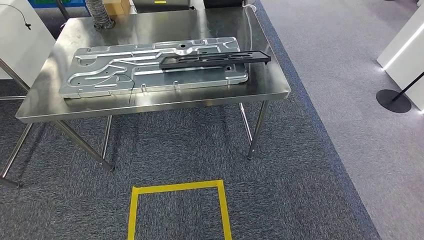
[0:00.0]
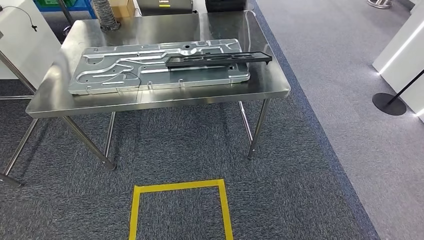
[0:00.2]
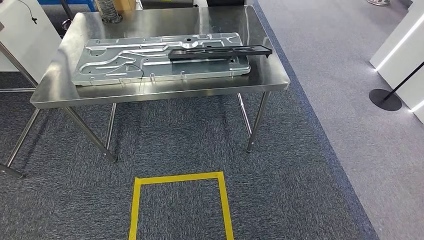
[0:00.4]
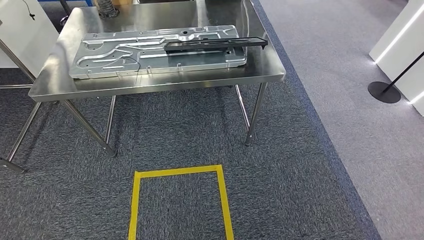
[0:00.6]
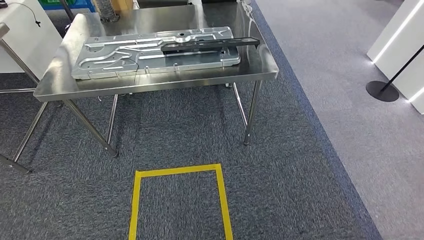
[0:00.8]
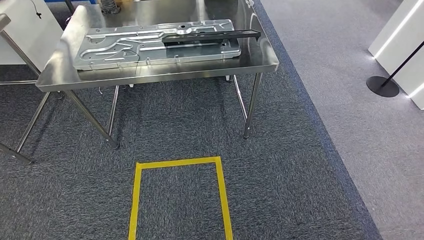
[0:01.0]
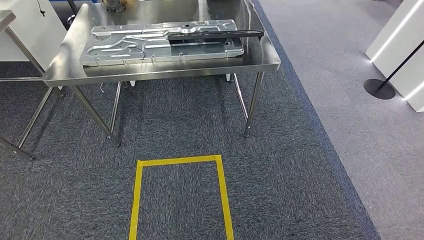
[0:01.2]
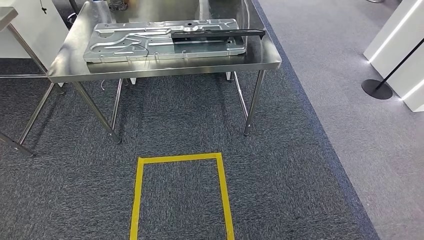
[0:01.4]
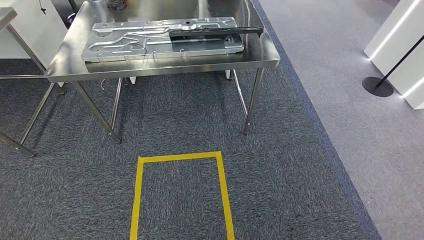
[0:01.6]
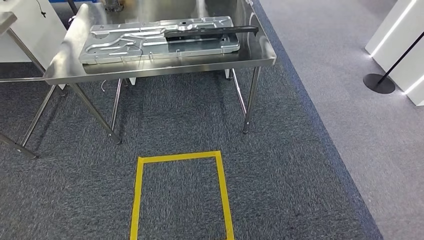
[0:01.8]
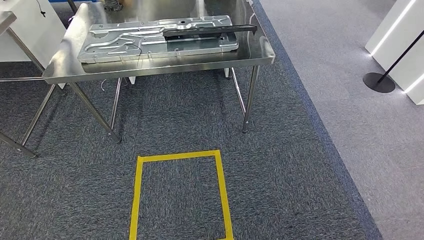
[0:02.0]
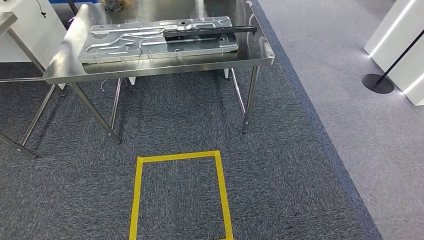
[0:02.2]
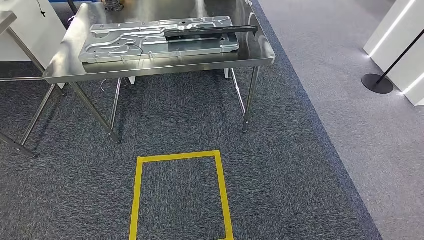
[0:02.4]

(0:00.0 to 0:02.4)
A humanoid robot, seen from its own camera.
Step, 0:00.0 - 0:02.2: Move to the initial position of the shelf.
0:01.2 - 0:02.4: The hands stay close to where they were, moving slightly.
